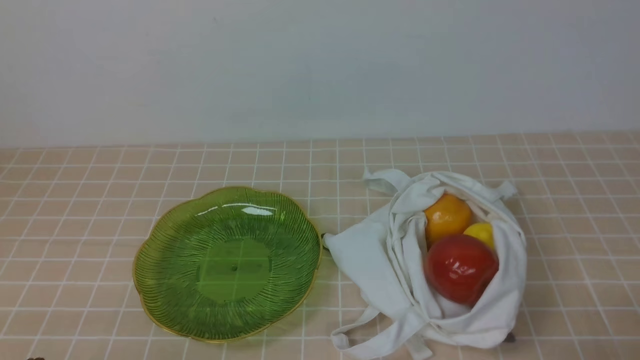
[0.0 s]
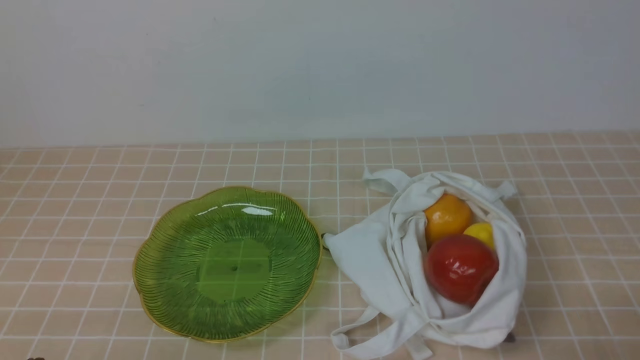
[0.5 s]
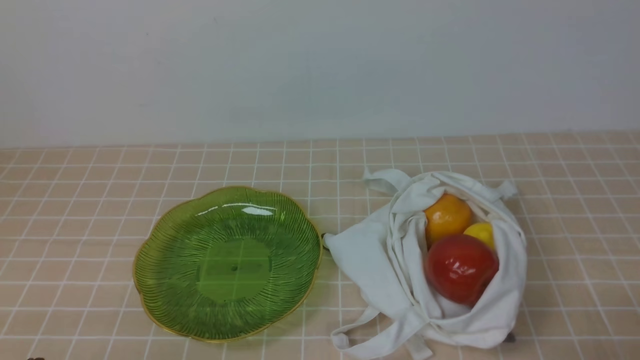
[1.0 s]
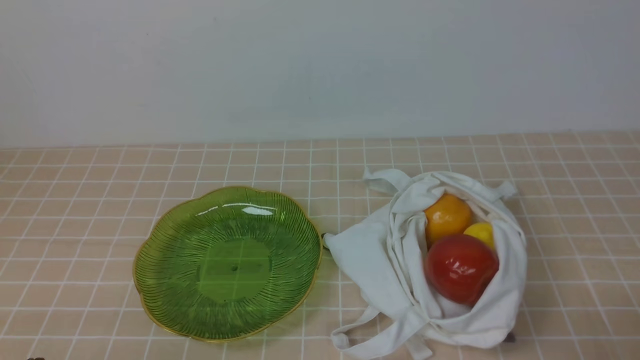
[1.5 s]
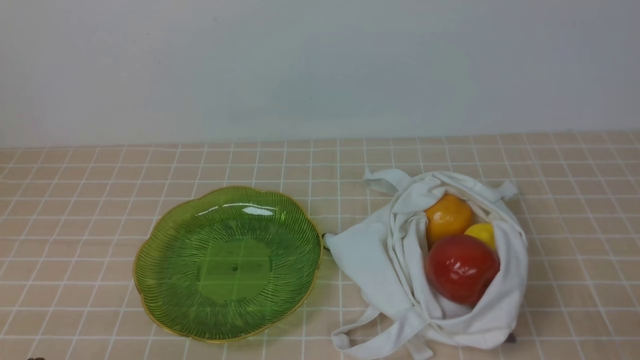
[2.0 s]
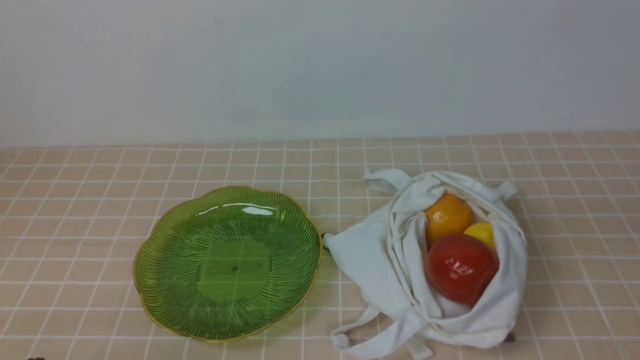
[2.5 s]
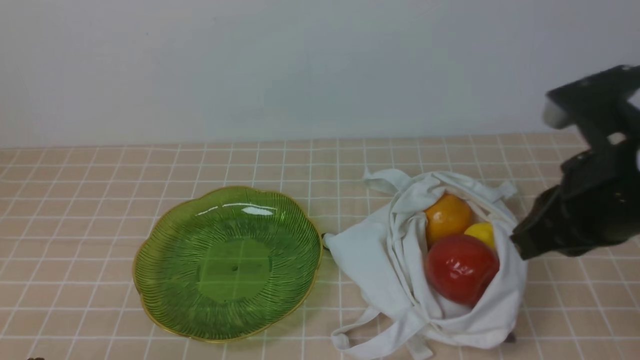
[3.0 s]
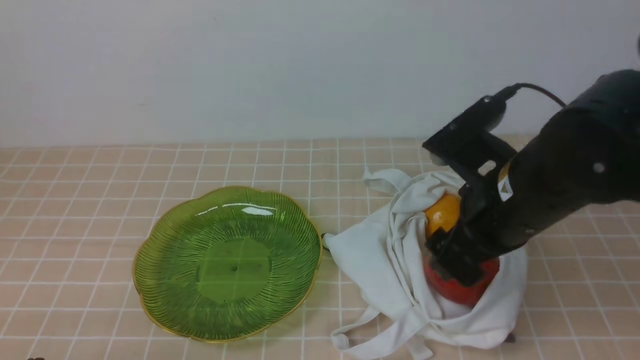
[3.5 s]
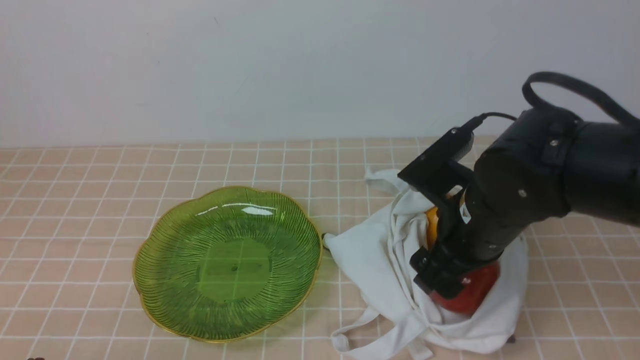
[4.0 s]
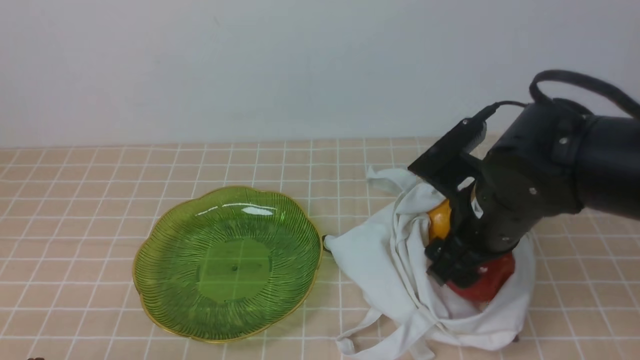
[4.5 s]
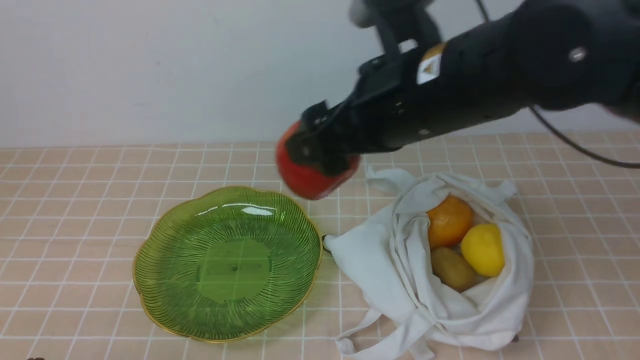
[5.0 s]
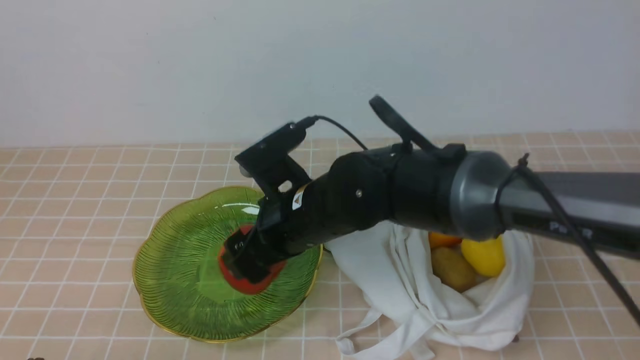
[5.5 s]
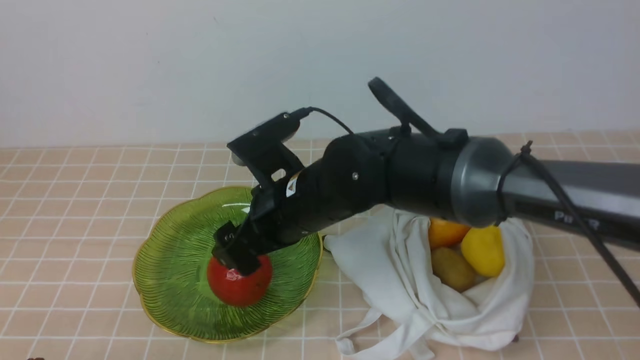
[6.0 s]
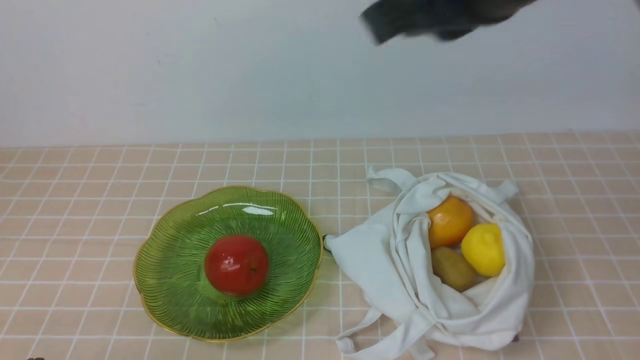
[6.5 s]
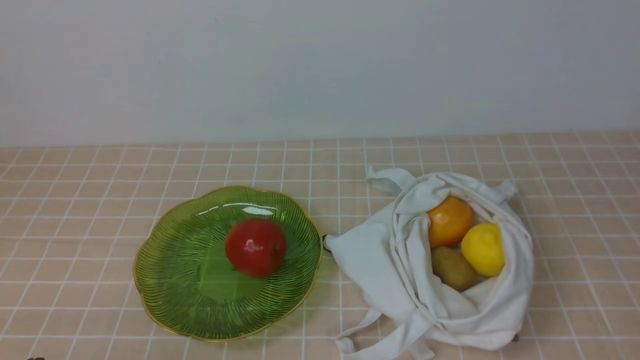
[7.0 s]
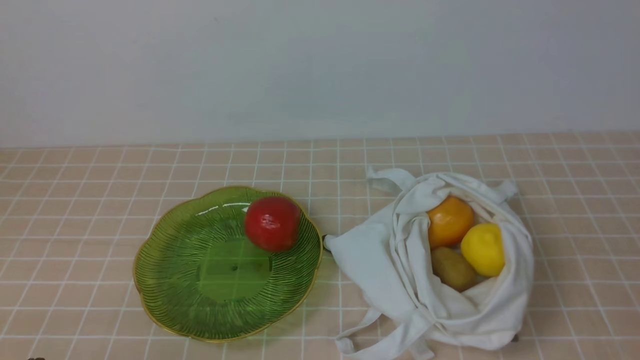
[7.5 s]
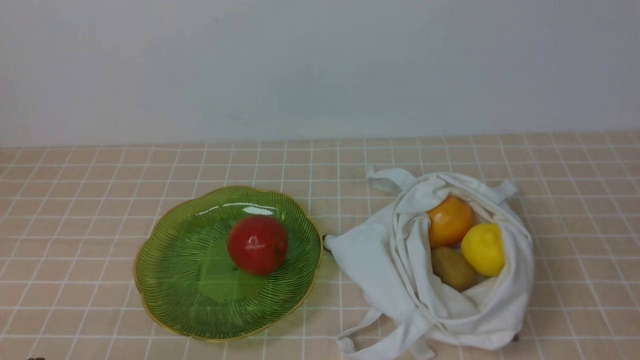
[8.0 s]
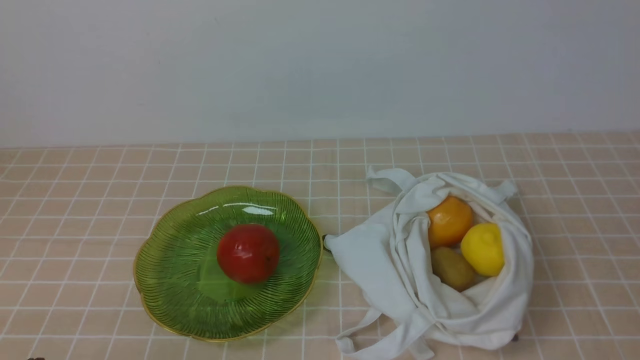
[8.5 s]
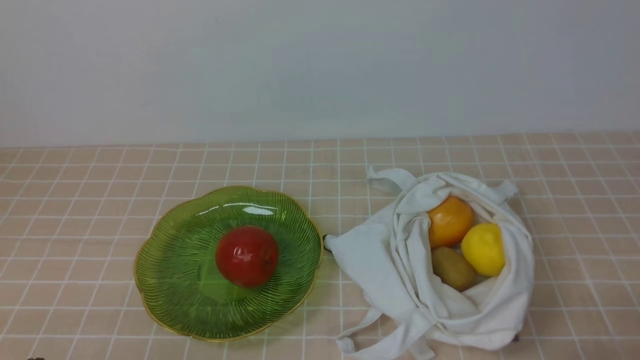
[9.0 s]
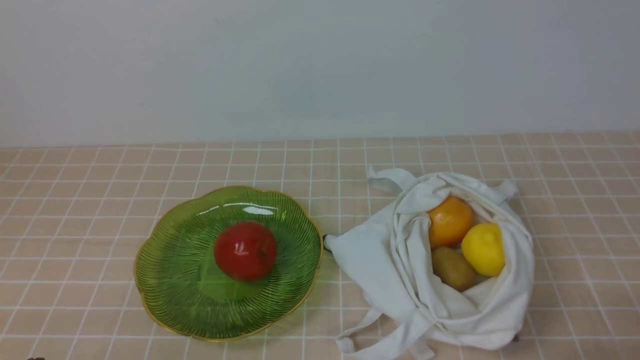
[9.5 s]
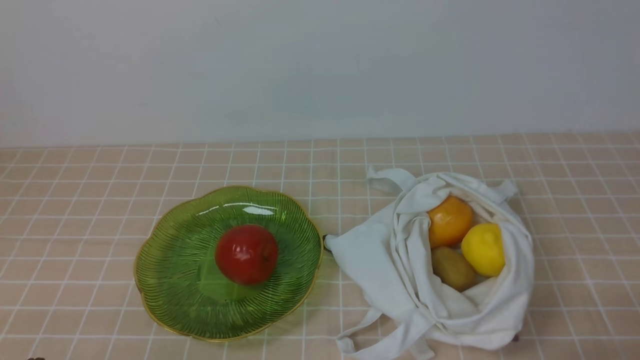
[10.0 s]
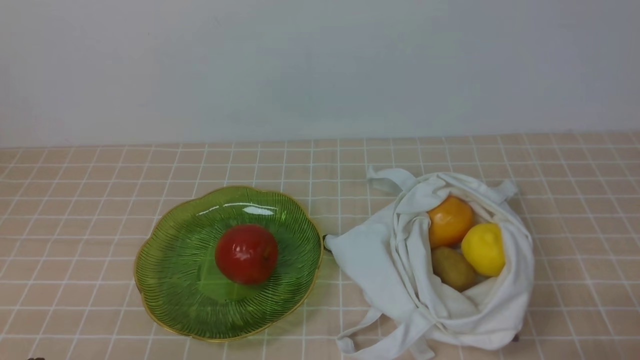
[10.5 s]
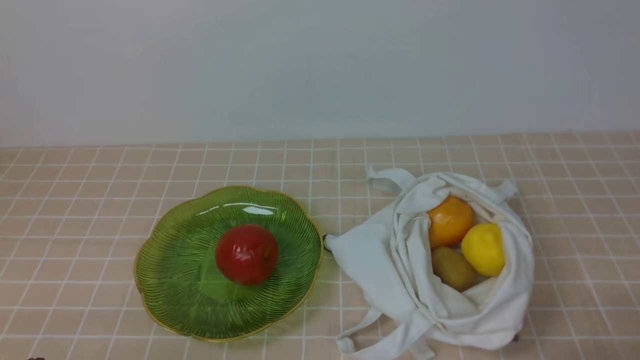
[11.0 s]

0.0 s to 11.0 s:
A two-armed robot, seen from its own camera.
Step, 0.0 to 4.0 s: use the right arm to grab an apple from the bag.
Step, 4.5 to 5.5 s: use the right arm to put the apple into the empty plate on the left.
2.0 to 3.5 s: The right gripper heads forward and to the left, covering some 25 cm, and opens its fingers.
3.5 to 5.5 s: The right gripper heads to the left, covering about 15 cm.
5.5 to 7.5 s: The right gripper shifts about 50 cm to the right and backward, and closes.
7.5 to 9.0 s: The right gripper is displaced downward by some 15 cm.
